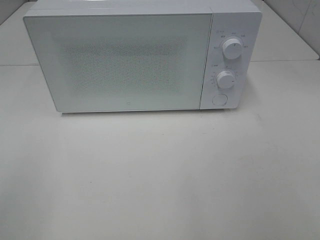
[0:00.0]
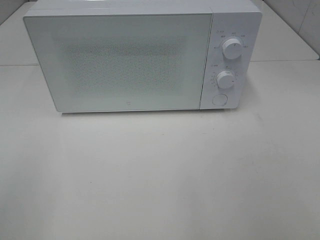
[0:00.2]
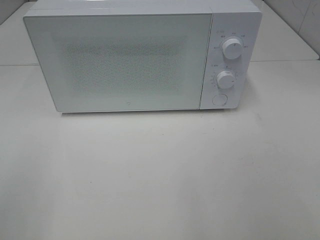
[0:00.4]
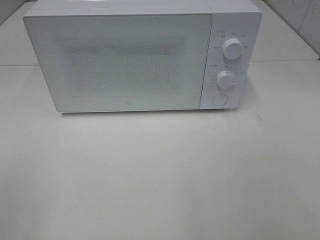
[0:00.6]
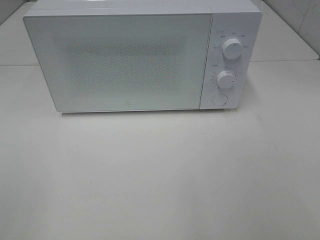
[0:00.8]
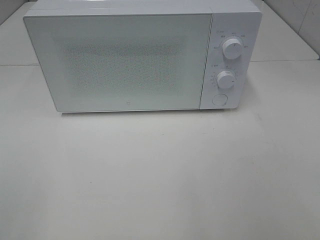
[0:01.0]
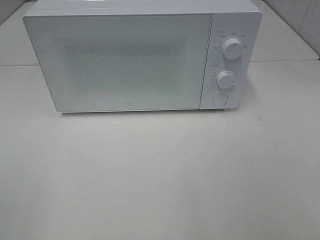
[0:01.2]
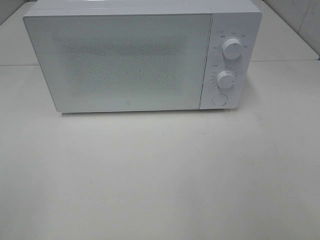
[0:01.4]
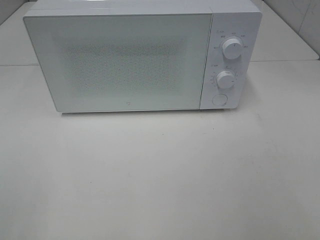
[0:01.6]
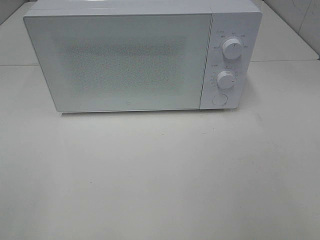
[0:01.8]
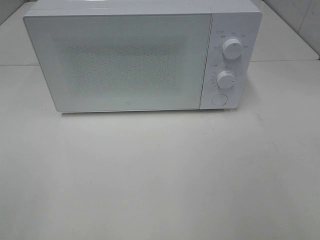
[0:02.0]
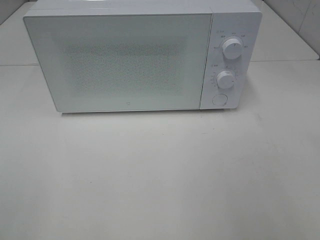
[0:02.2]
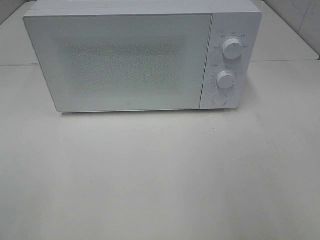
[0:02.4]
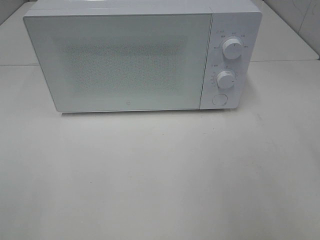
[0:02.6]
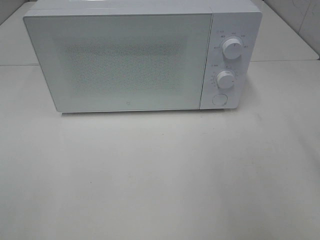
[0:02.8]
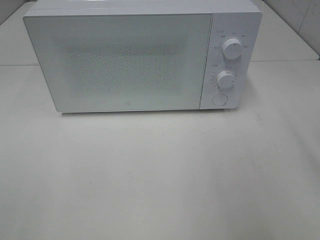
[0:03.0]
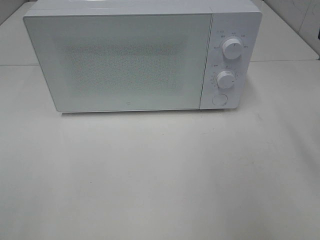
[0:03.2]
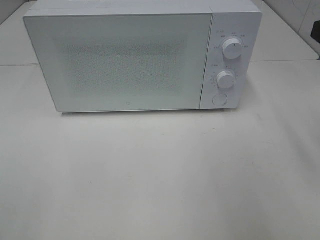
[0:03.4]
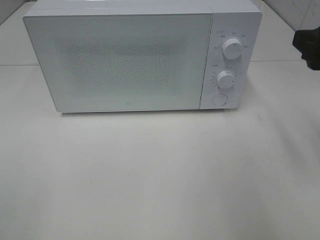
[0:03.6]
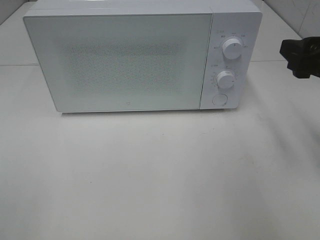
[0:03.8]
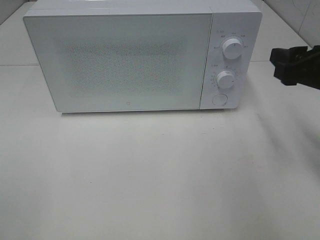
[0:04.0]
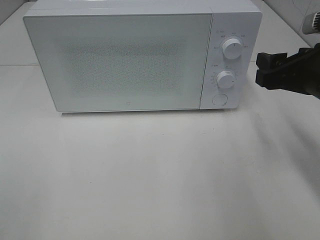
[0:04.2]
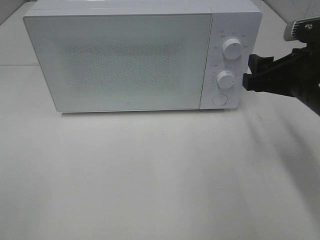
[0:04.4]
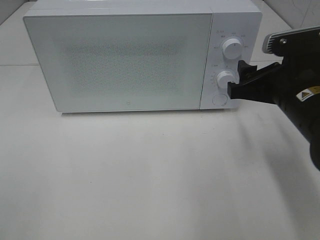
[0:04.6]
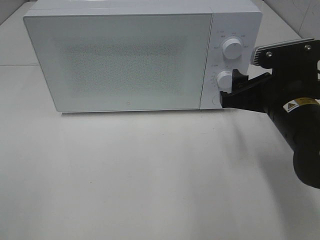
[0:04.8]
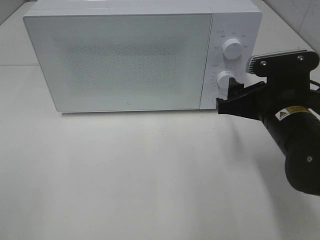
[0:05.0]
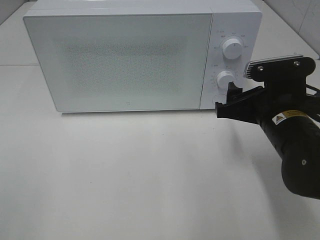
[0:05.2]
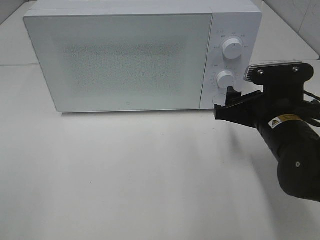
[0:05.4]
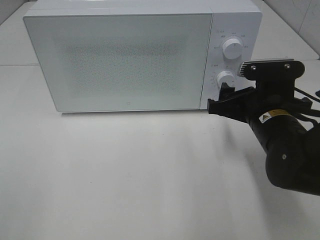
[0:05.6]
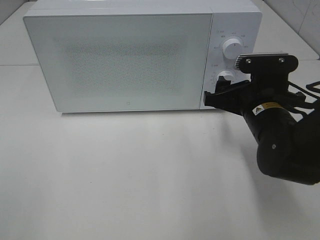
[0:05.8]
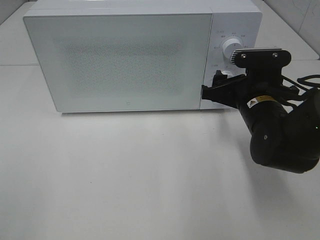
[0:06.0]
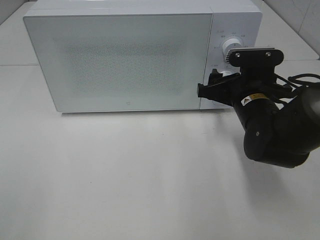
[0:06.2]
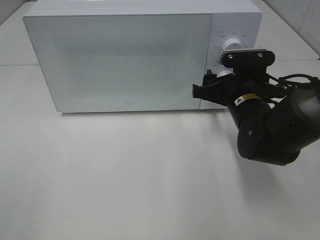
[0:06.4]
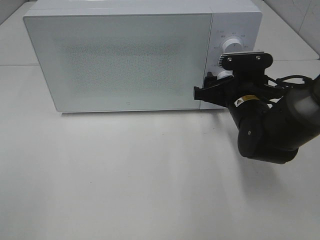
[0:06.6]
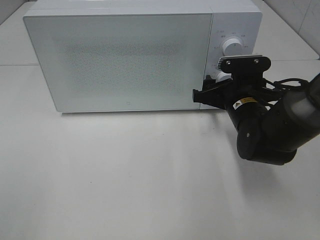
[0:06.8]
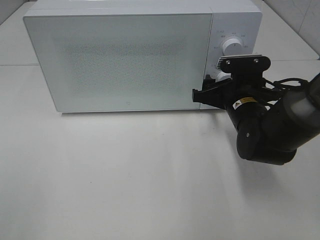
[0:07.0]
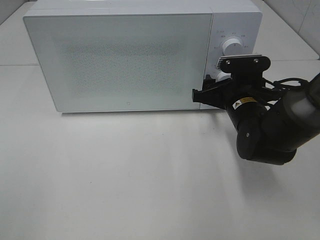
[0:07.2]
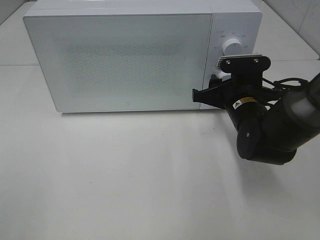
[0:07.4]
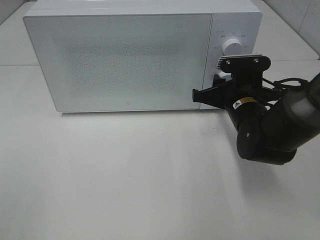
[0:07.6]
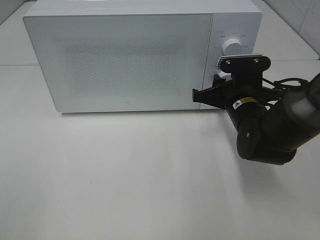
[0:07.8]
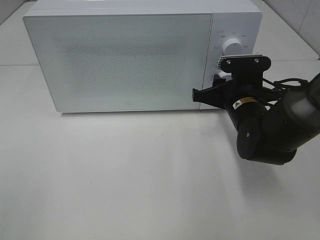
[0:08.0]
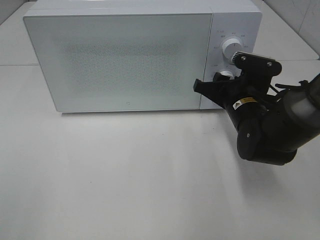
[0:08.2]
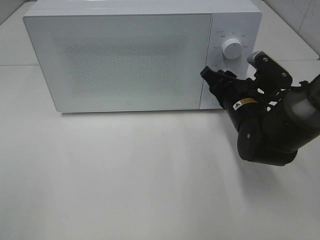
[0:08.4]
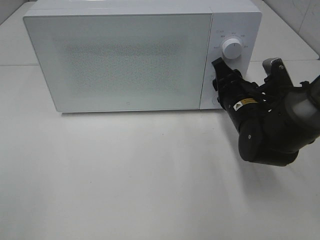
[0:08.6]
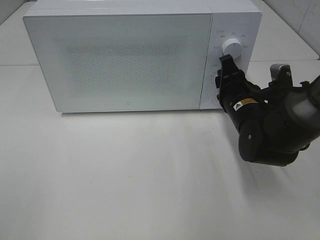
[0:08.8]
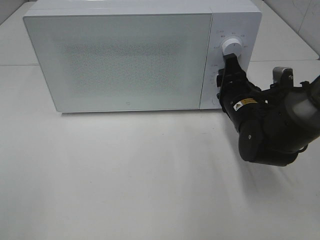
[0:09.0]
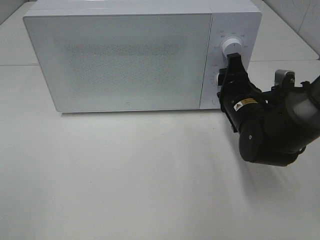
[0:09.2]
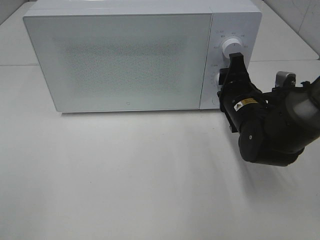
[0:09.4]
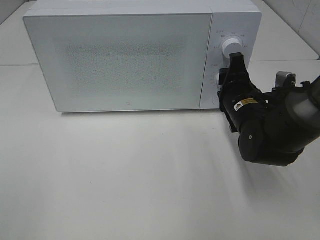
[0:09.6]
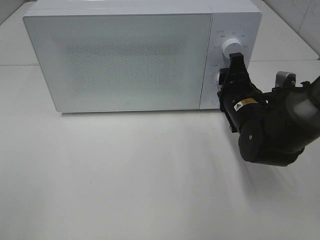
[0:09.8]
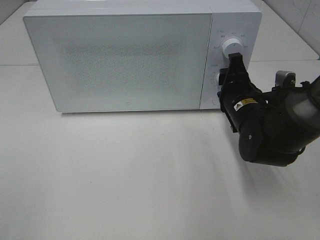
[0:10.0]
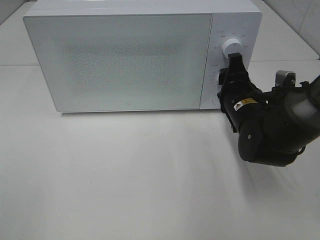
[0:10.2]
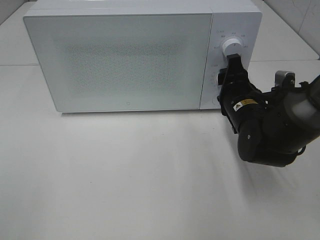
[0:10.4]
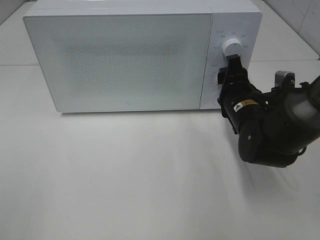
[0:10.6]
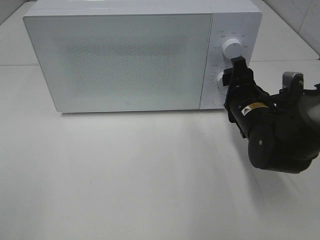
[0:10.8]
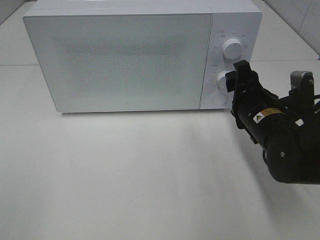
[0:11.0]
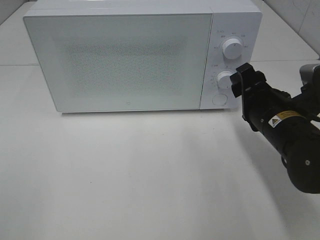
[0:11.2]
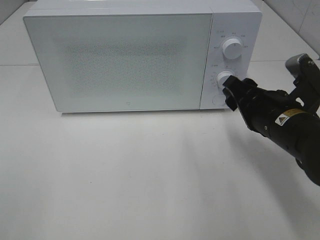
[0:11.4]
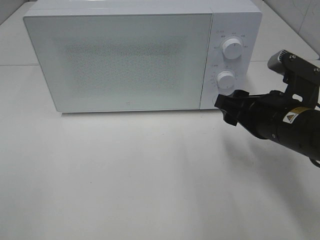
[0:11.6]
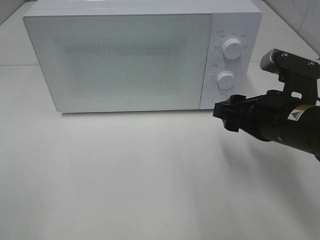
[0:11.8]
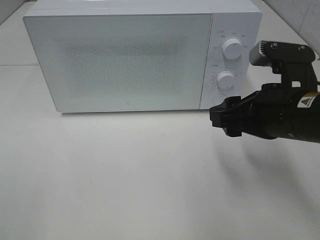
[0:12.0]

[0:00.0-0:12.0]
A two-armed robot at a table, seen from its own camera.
Task of the whole recording: Heat the burger.
Step, 0:00.0 to 0:10.6: Right hand: twist timer button.
0:03.0 to 0:04.4: The right gripper goes approximately 15 cm downward, forward and to the left.
0:04.4 to 0:06.0: The right gripper moves downward and to the left, approximately 10 cm.
0:06.0 to 0:07.6: The right gripper closes its fingers.
0:09.0 to 0:10.4: The grippers stay close to where they were, moving slightly.
0:10.4 to 0:12.0: The right gripper heads backward and upward, covering roughly 15 cm.

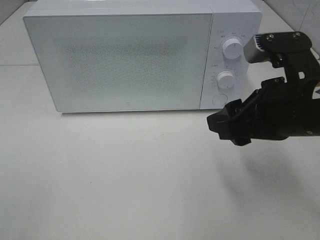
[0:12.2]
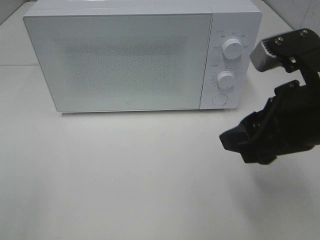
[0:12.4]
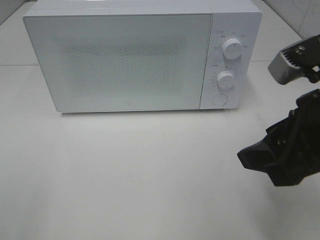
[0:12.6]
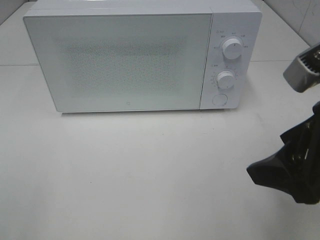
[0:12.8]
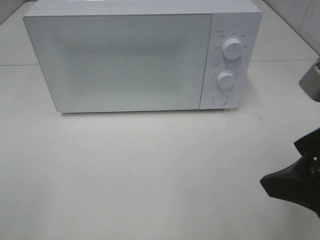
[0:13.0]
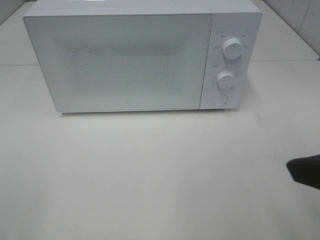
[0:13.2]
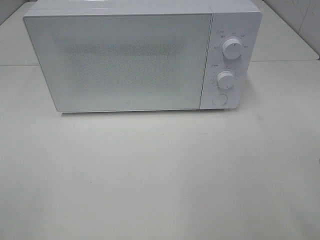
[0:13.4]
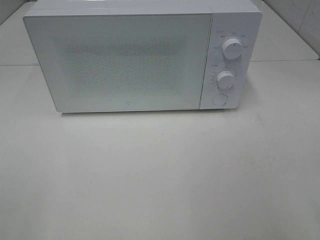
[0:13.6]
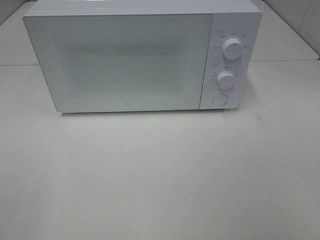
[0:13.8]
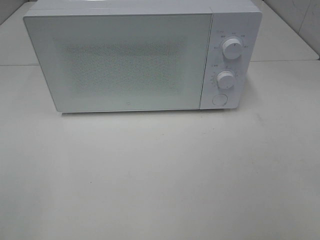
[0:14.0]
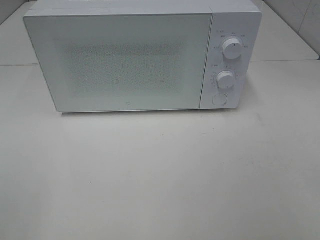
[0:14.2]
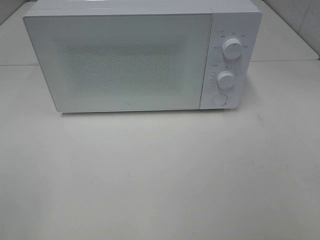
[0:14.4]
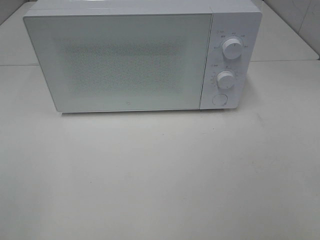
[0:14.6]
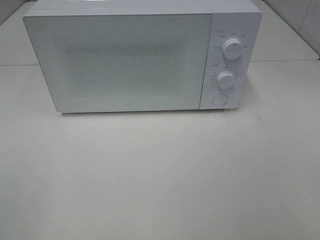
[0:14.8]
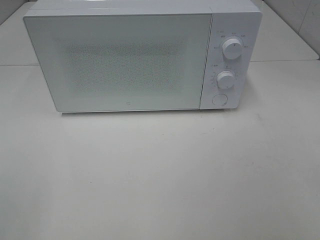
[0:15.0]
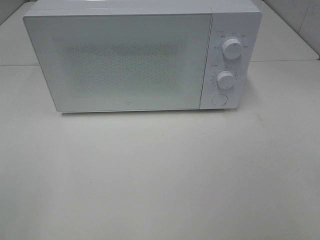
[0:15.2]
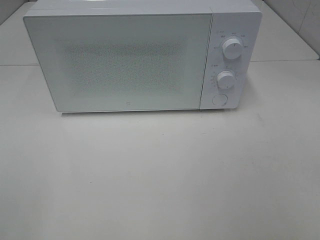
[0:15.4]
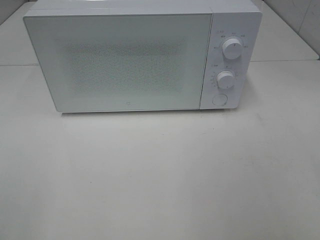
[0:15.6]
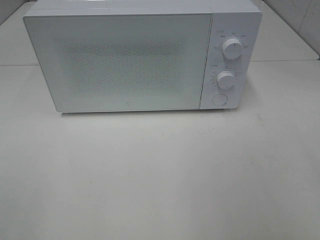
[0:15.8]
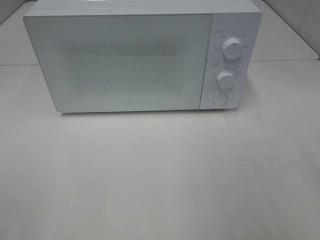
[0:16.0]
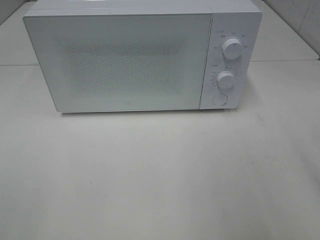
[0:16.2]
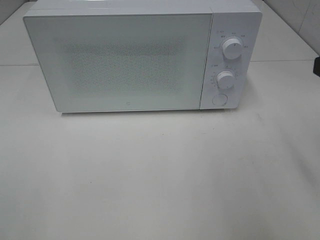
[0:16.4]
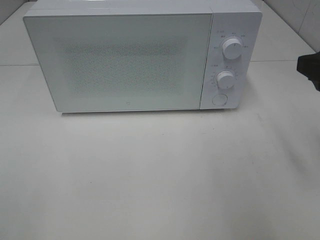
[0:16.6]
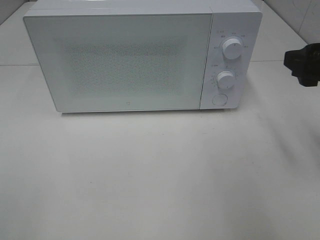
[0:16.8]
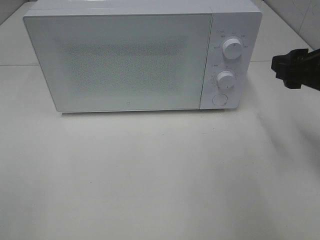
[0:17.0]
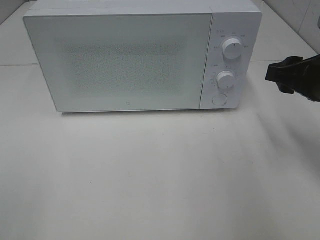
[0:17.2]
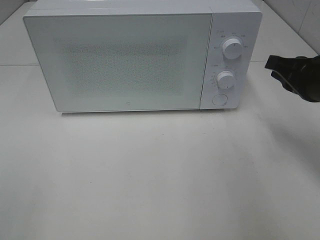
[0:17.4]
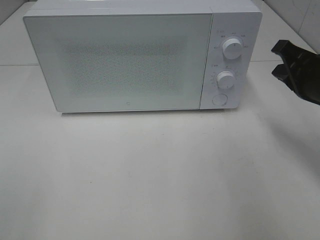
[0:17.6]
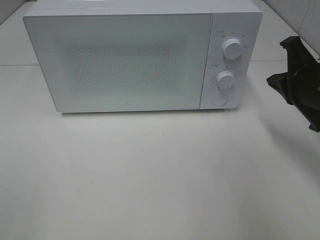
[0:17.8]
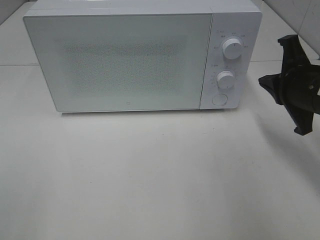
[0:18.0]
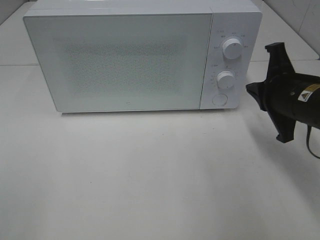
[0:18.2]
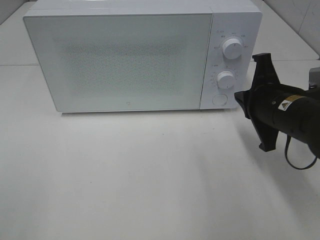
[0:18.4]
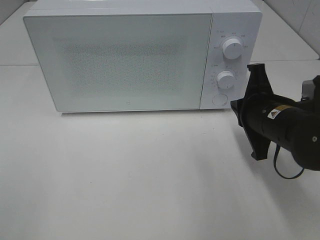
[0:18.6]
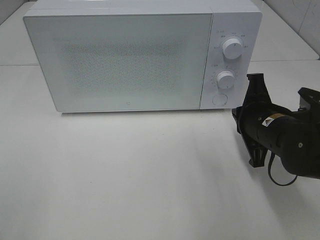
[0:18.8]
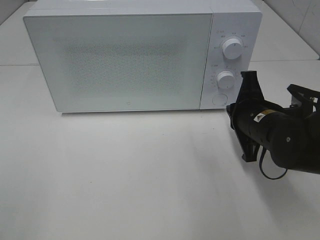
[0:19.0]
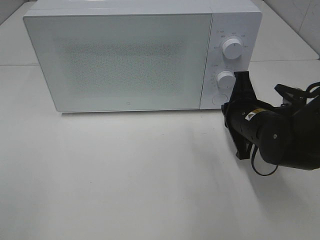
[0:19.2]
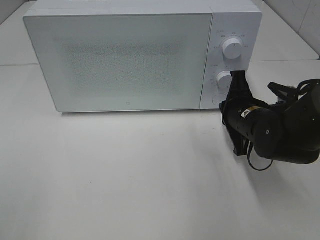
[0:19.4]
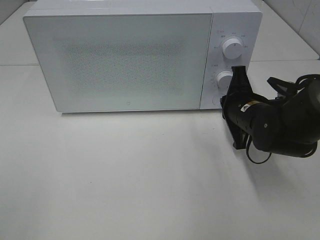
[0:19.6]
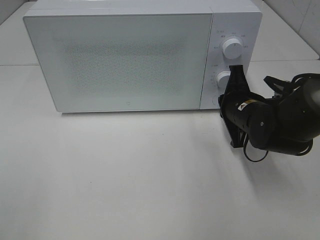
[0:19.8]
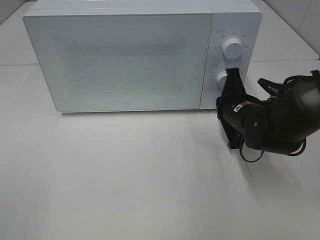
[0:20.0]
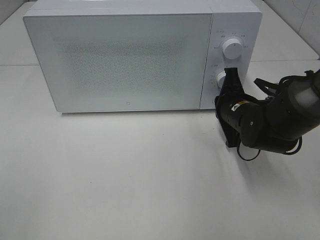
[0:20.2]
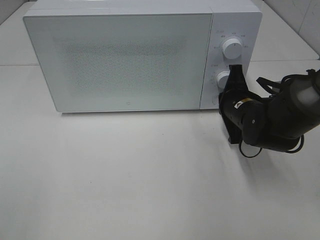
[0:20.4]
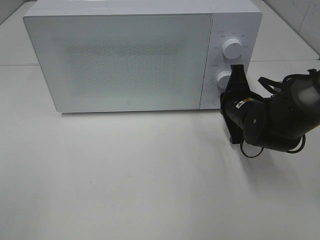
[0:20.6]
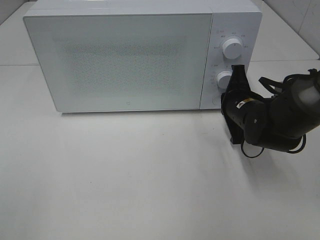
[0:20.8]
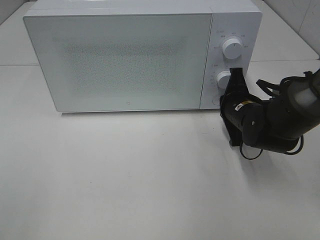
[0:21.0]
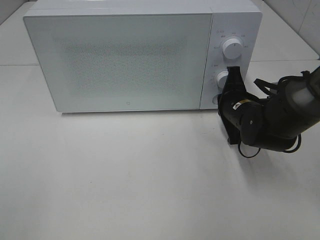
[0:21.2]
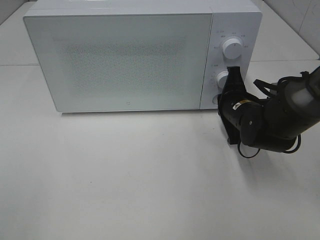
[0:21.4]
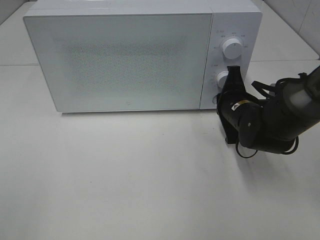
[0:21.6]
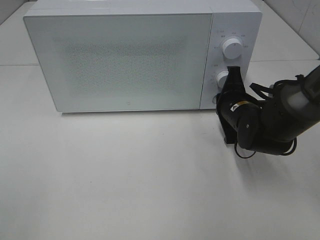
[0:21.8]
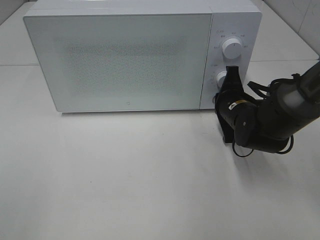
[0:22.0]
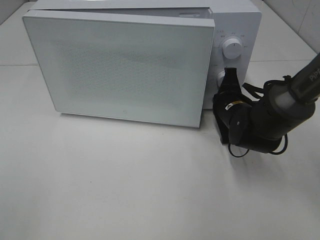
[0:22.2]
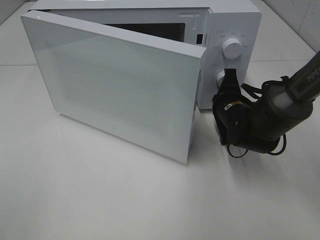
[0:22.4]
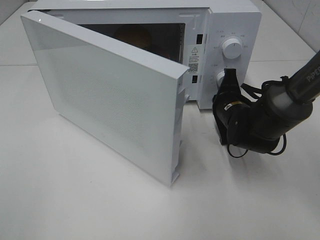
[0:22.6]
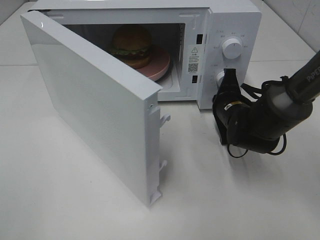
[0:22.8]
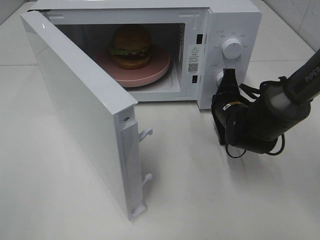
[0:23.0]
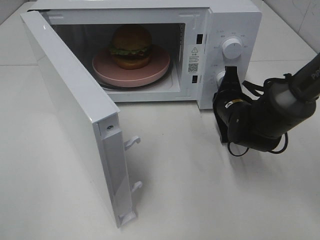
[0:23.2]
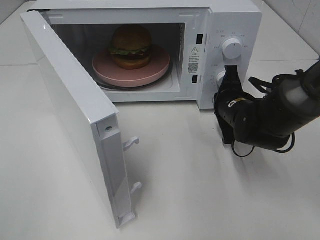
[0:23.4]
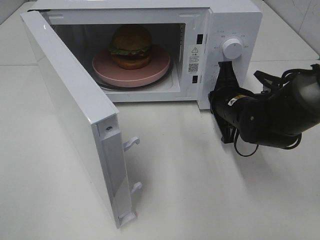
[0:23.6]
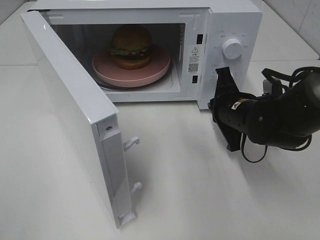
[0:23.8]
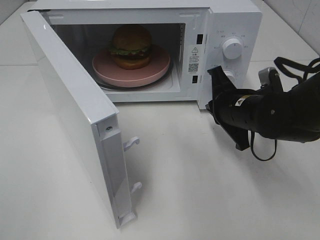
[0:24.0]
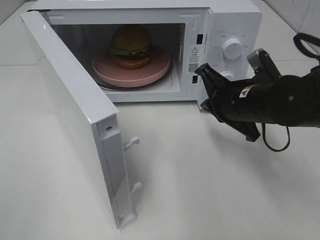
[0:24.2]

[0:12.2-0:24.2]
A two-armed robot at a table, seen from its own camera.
Task of the whole recording: Heat the burger.
Step, 0:12.2 to 0:23.4: Right hand: press the switch.
0:12.2 to 0:13.8: The right gripper shifts approximately 20 cm backward and to the right.
0:15.2 to 0:16.6: The right gripper moves forward, roughly 20 cm.
0:16.6 to 0:18.2: The right gripper shifts roughly 15 cm downward, forward and to the left, and closes.
0:18.2 to 0:19.8: The right gripper heads downward and forward, covering roughly 10 cm.
0:19.8 to 0:21.2: There are only small adjustments of the grippers.
0:22.6 to 0:24.2: The right gripper travels upward and backward by roughly 10 cm.
